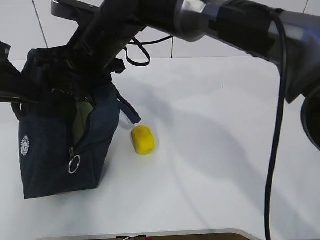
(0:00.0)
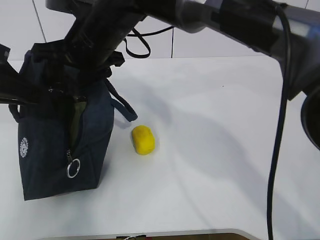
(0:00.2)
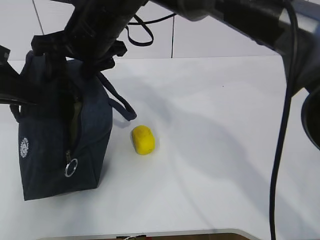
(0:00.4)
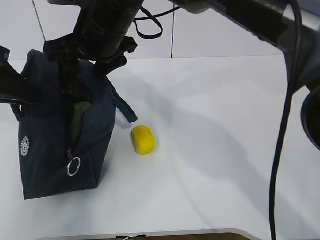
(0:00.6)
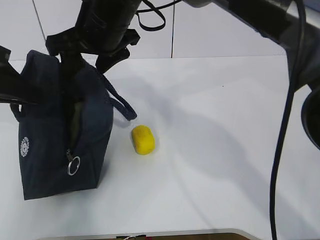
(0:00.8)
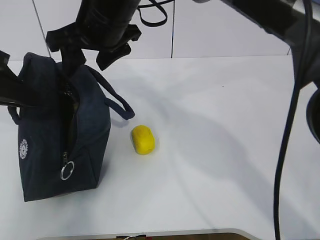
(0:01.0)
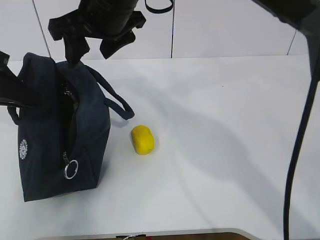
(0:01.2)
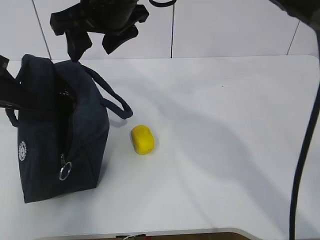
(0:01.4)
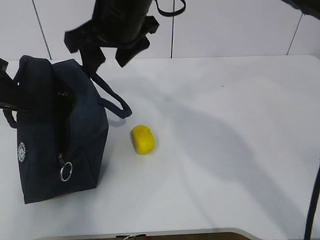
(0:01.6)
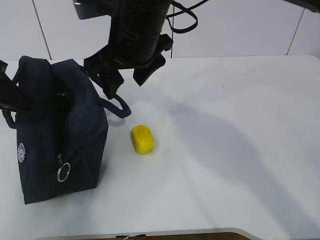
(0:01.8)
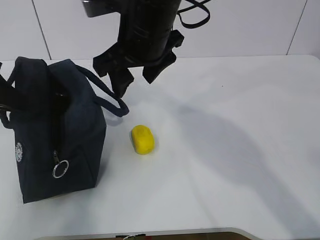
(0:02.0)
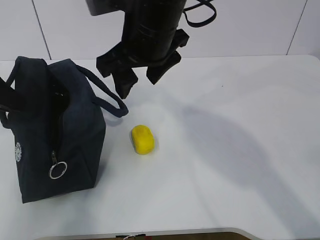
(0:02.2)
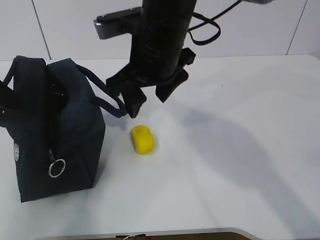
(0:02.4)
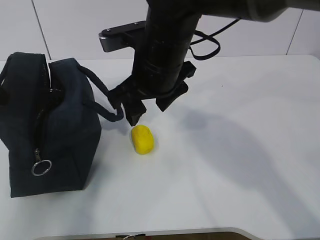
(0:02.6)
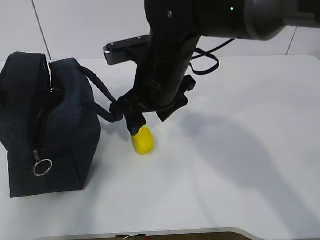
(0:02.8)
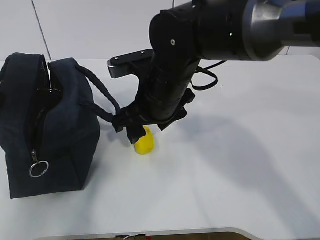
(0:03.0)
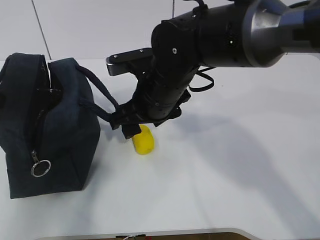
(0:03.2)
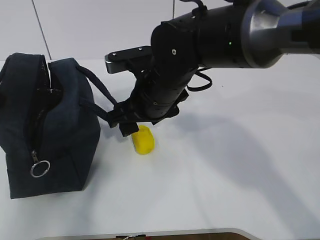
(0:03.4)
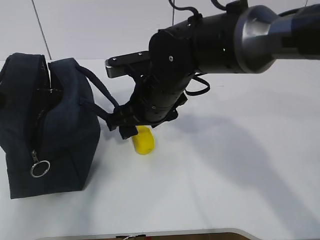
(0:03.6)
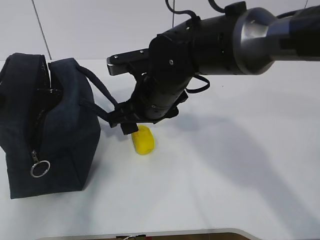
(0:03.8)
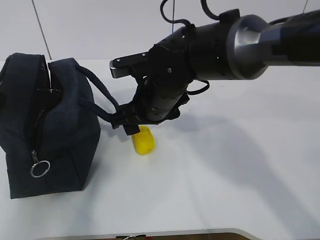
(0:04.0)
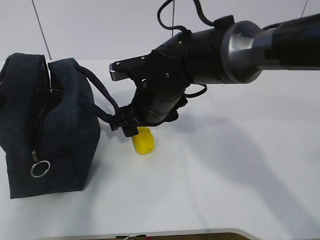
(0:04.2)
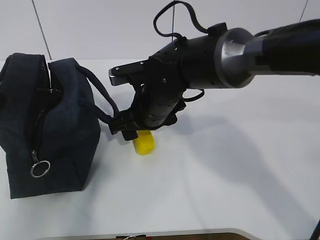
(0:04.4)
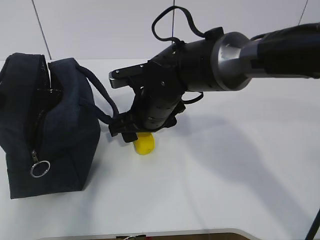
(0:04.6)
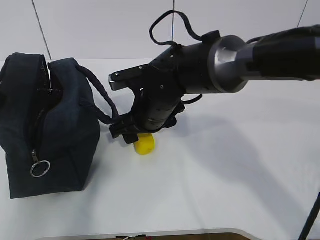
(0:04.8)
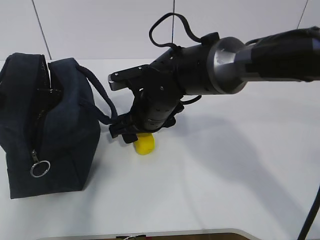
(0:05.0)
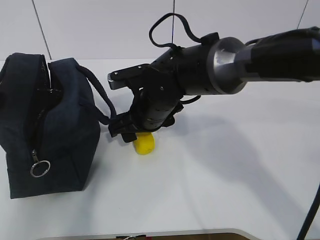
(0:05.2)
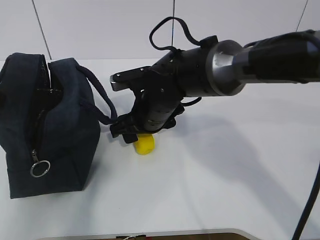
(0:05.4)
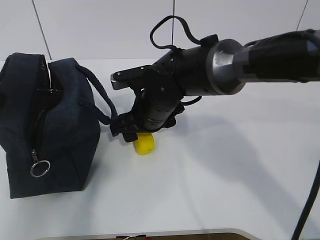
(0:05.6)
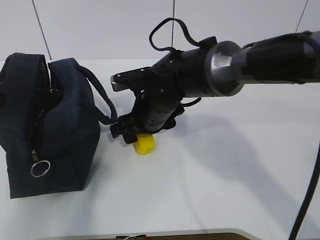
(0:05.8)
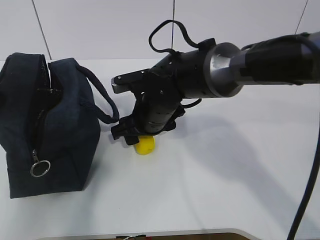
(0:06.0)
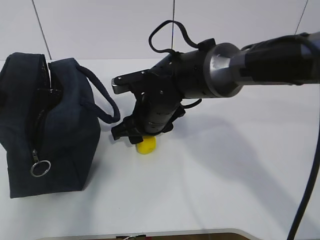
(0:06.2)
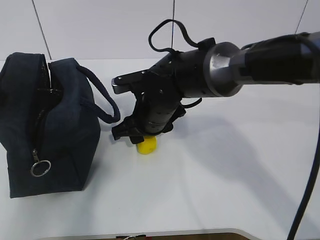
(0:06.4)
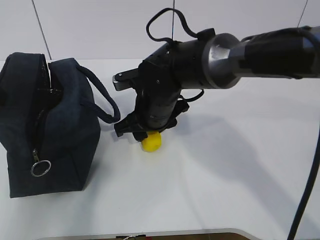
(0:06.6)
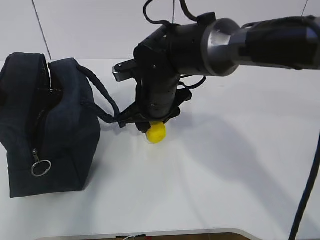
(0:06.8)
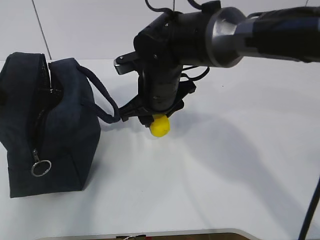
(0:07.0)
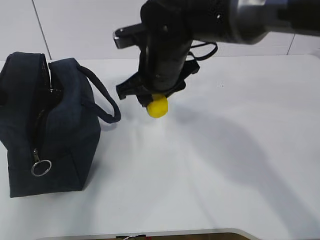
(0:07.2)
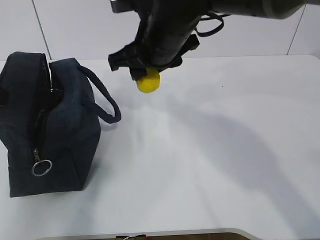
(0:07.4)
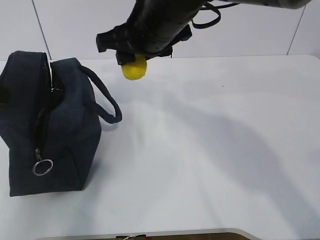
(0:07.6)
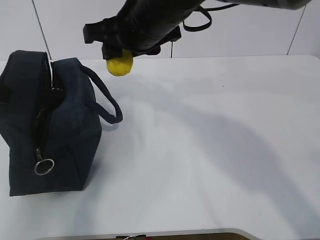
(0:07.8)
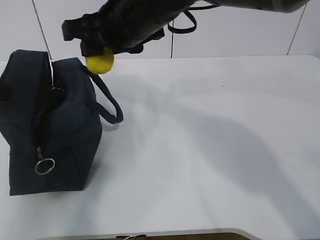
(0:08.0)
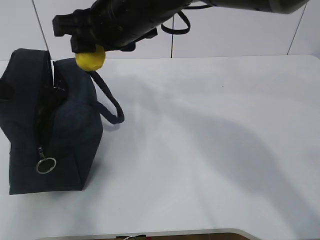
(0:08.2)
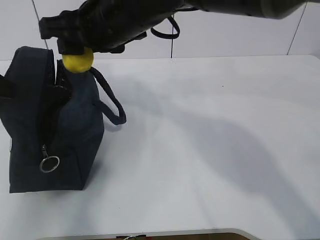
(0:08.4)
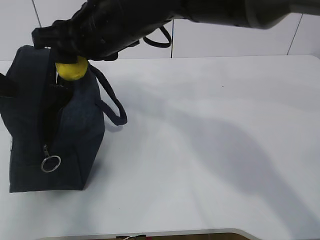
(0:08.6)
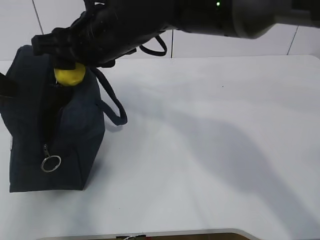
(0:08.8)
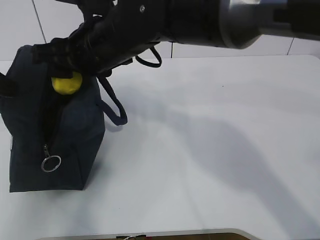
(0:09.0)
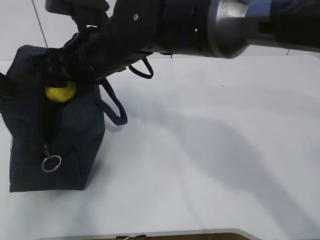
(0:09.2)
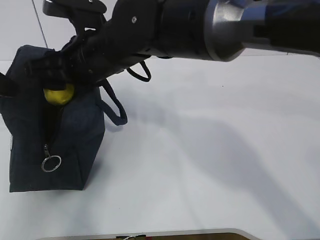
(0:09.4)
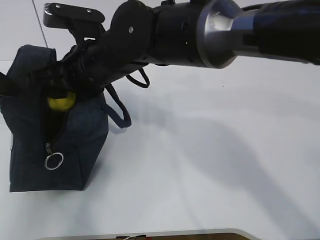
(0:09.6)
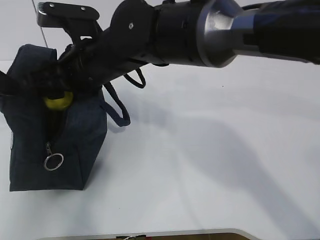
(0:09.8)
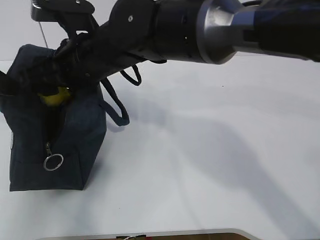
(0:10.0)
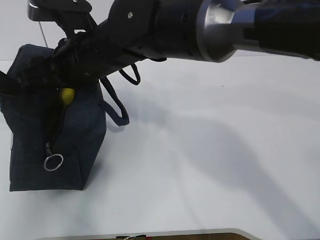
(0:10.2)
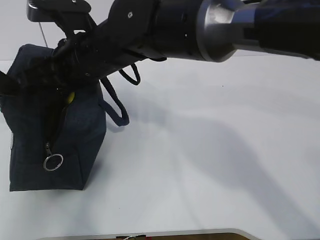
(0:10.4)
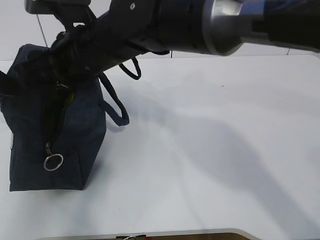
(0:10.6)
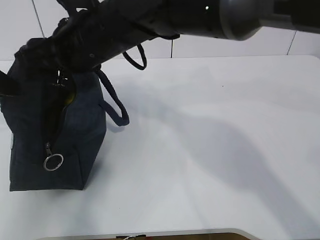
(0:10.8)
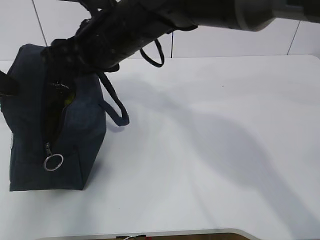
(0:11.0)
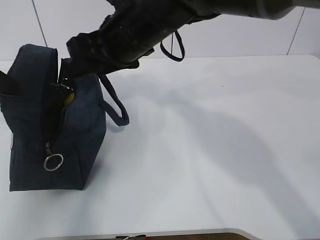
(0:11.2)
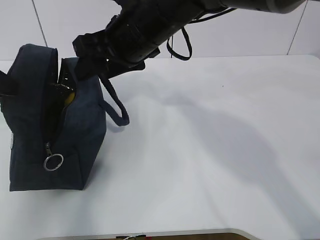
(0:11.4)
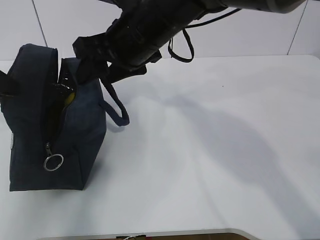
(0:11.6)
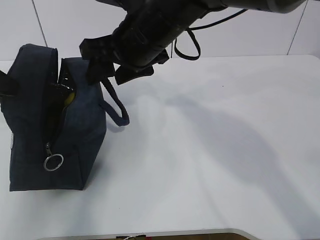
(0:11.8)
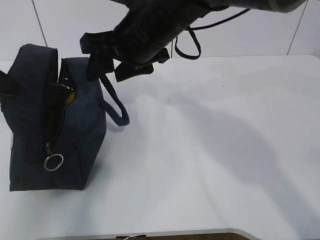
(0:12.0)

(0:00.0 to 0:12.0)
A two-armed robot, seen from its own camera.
Step, 0:00.4 - 0:03.6: Secure the lunch bag with your left hand.
Step, 0:03.8 - 0:06.6: Grab the lunch bag with your right hand.
Step, 0:06.8 - 0:11.0: Move the lunch bag to the right.
0:00.0 - 0:01.6: The right gripper goes roughly 5 cm upward.
0:01.6 - 0:03.0: The right gripper is displaced downward by about 10 cm.
0:03.0 - 0:04.4: The right gripper ends up about 5 cm from where it was.
0:04.4 - 0:06.0: The grippers stay close to where they were, moving slightly.
0:06.0 - 0:07.6: The right gripper goes approximately 15 cm upward.
0:07.6 - 0:09.0: The right gripper shifts roughly 5 cm to the left.
0:09.0 - 0:10.4: The grippers move only a little.
0:10.4 - 0:12.0: The right gripper travels to the right by some 10 cm.

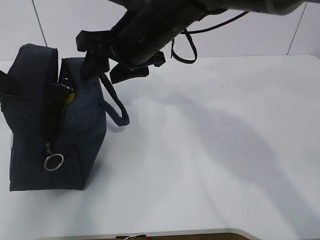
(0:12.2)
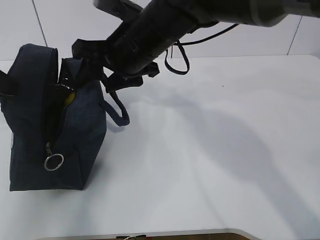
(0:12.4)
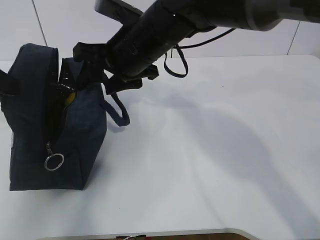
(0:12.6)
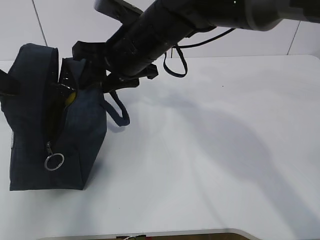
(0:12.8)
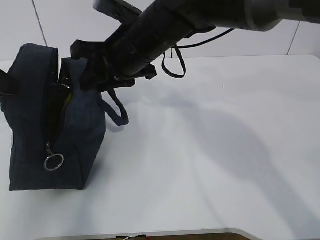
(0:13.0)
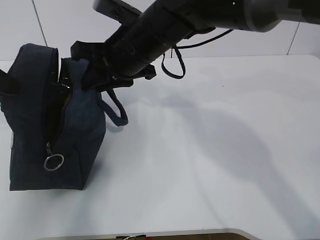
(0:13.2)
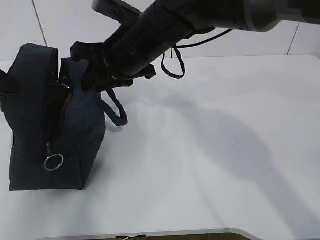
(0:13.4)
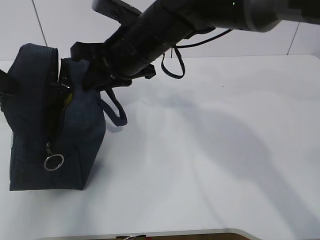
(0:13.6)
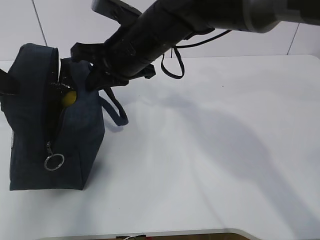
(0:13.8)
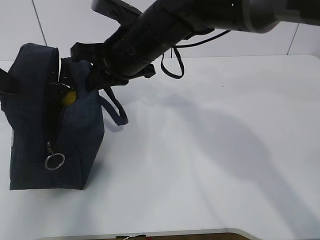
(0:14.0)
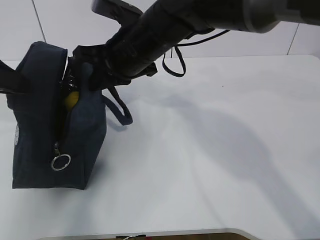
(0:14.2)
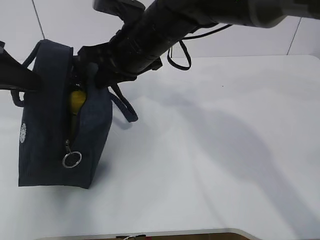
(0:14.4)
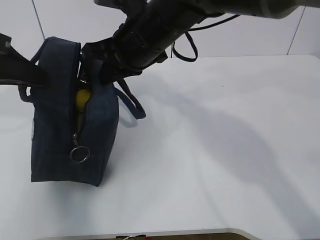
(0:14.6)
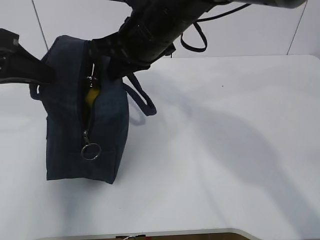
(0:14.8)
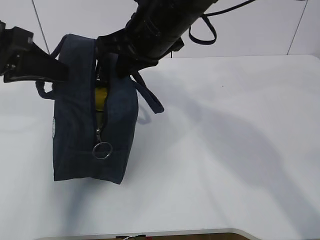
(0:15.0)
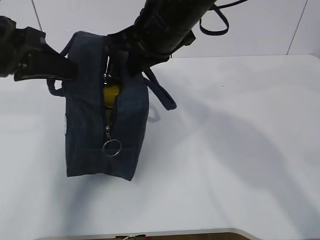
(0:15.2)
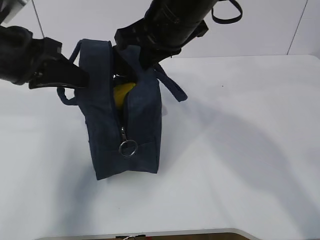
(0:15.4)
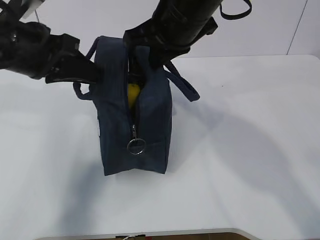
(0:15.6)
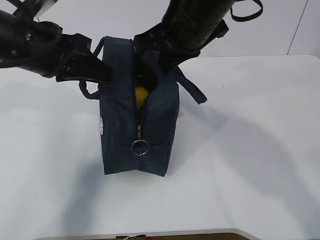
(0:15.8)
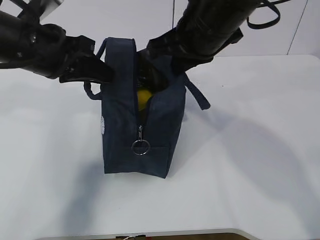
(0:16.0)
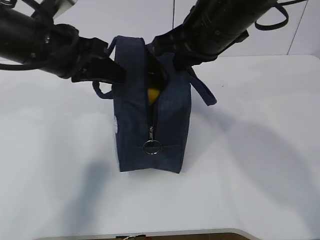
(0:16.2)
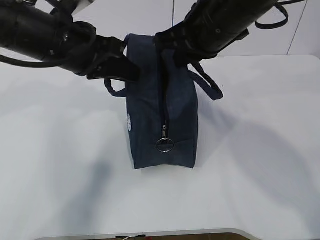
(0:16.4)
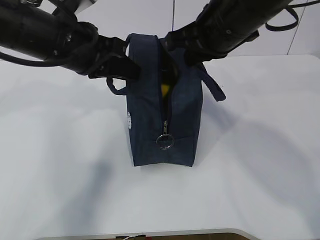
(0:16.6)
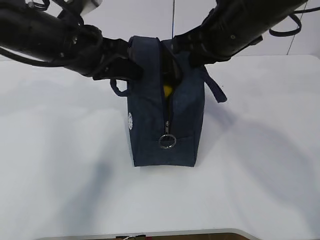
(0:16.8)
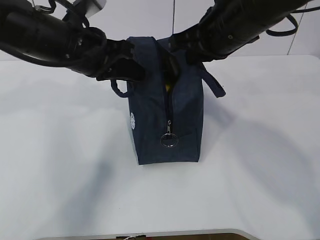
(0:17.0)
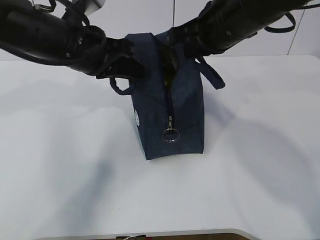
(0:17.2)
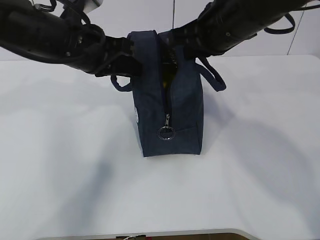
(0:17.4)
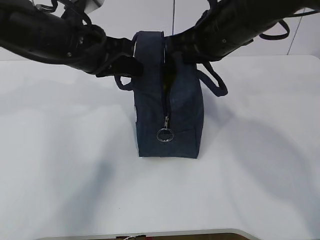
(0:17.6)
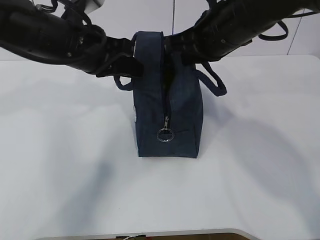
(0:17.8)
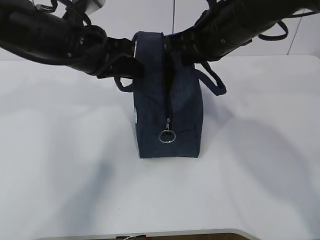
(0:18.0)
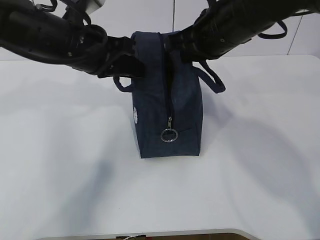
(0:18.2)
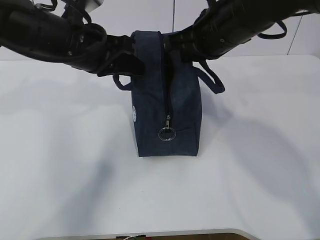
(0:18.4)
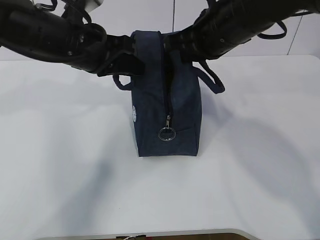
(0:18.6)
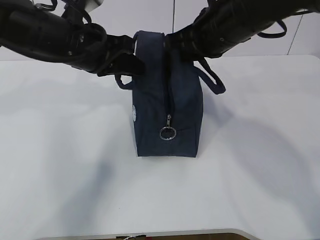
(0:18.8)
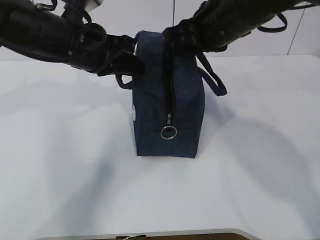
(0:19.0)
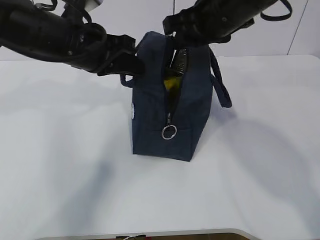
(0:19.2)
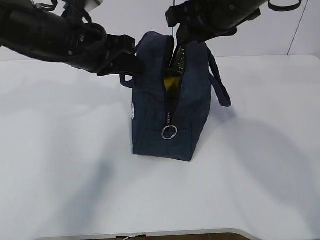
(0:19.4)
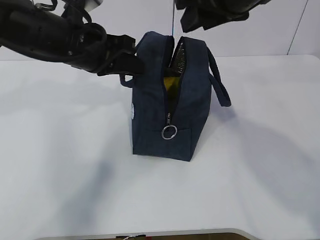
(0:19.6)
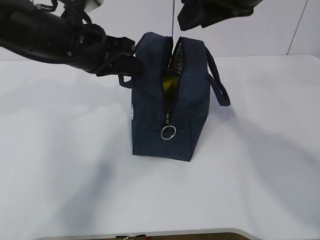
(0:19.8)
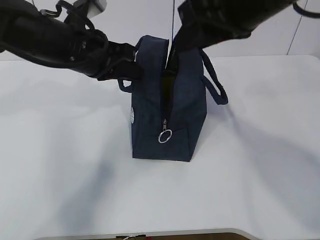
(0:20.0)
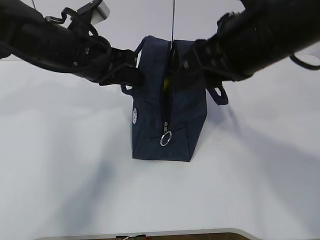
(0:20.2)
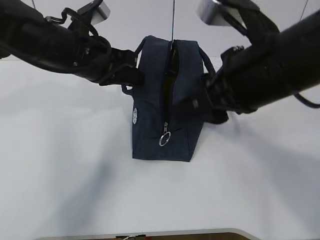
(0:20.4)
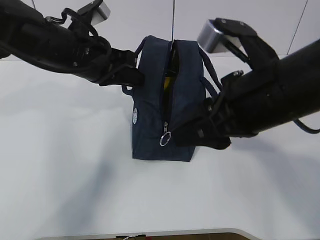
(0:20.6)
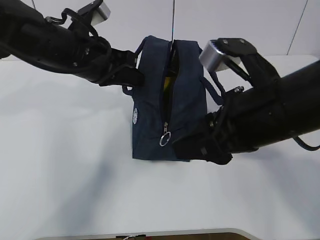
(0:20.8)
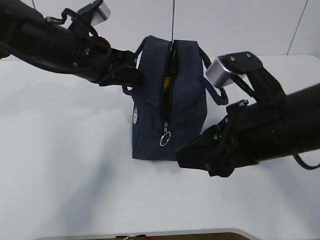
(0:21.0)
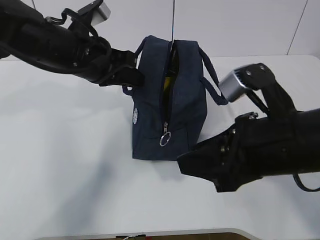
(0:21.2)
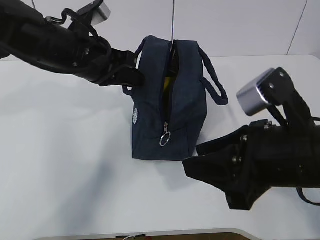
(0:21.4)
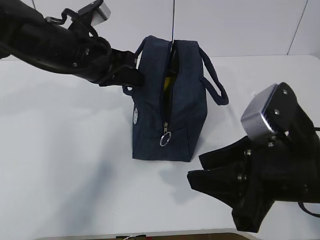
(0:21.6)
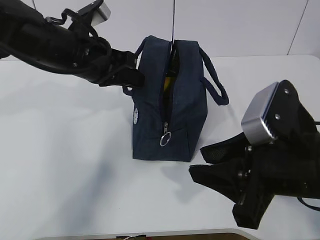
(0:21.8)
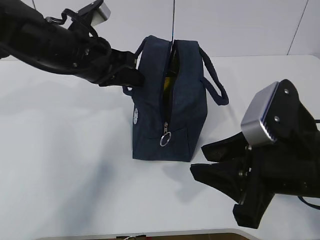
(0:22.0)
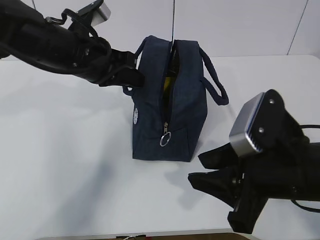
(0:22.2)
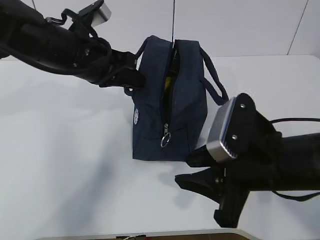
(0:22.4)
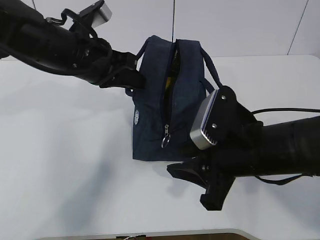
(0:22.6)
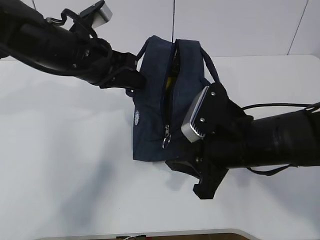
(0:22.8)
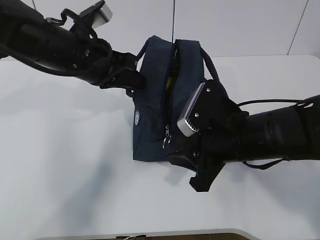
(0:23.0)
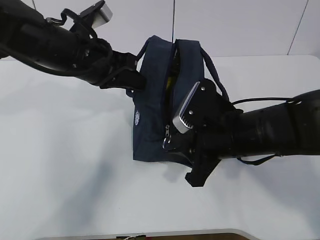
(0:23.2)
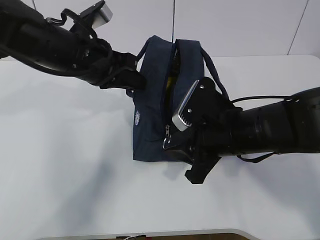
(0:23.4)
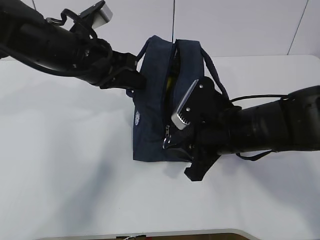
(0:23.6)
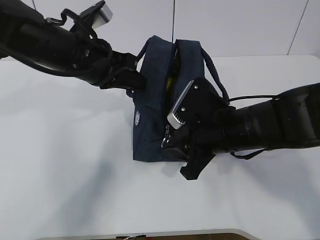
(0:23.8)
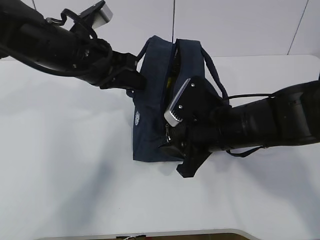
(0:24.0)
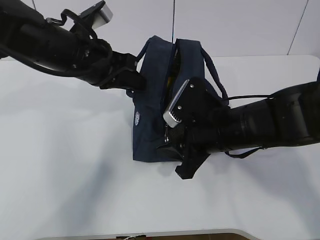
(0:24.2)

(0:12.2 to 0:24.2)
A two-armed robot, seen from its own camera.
Step, 0:12.2 - 0:18.0: Grab the lunch bag with your left hand.
0:12.2 - 0:13.8: The right gripper closes its fingers.
0:13.8 - 0:15.2: The left gripper is displaced to the right by about 10 cm. Meanwhile the right gripper shifts by roughly 5 cm.
0:15.2 - 0:16.6: The two grippers go some 10 cm to the right.
0:16.6 - 0:18.2: There are only small adjustments of the grippers.
0:18.2 - 0:19.8: The right gripper heads upward, covering some 10 cm, and opens.
0:19.8 - 0:21.2: The right gripper travels downward and backward by approximately 20 cm.
0:21.2 - 0:22.6: The right gripper moves approximately 5 cm.
0:22.6 - 0:24.2: The right gripper heads forward, covering roughly 5 cm.
